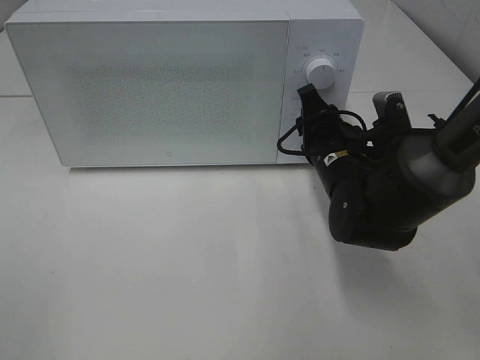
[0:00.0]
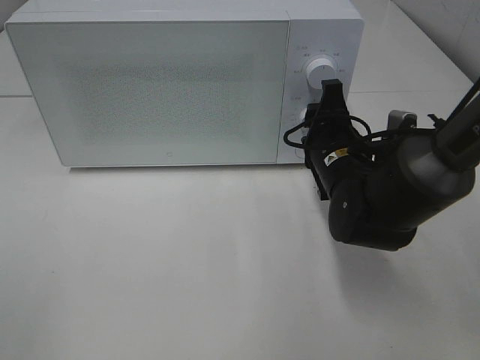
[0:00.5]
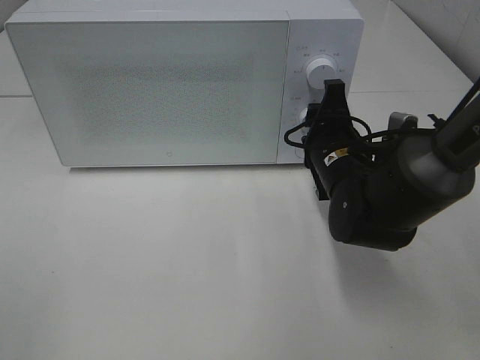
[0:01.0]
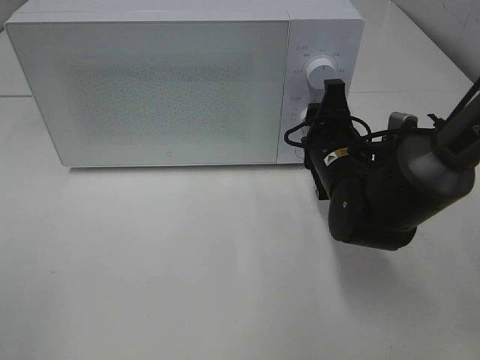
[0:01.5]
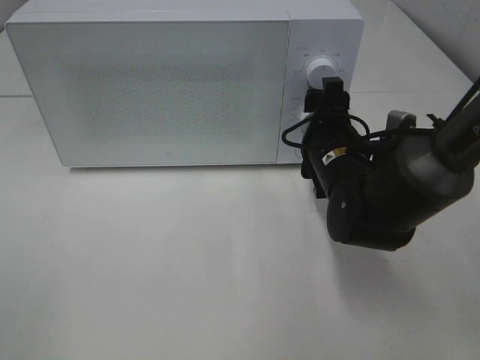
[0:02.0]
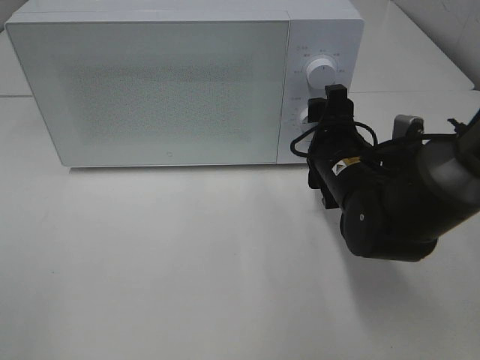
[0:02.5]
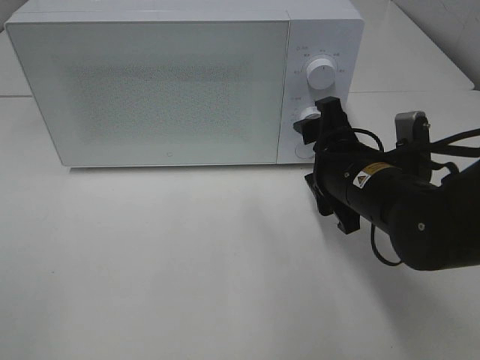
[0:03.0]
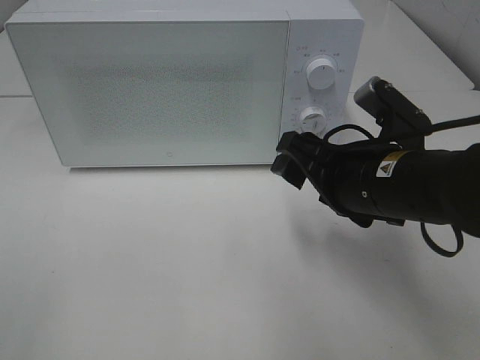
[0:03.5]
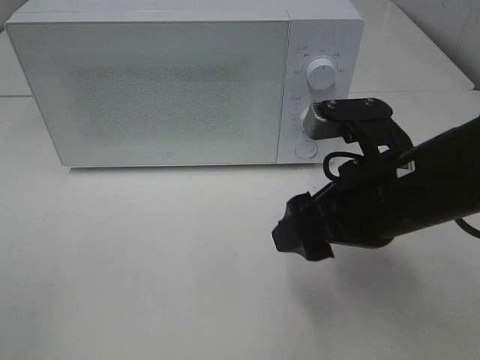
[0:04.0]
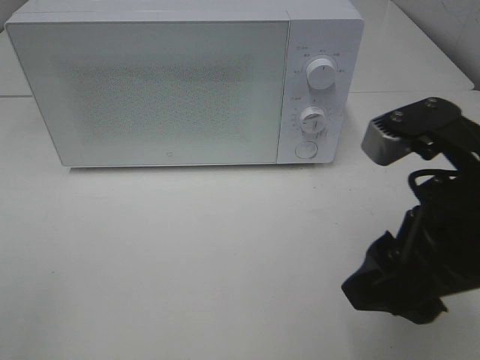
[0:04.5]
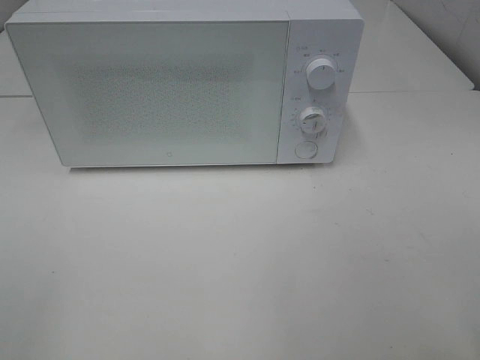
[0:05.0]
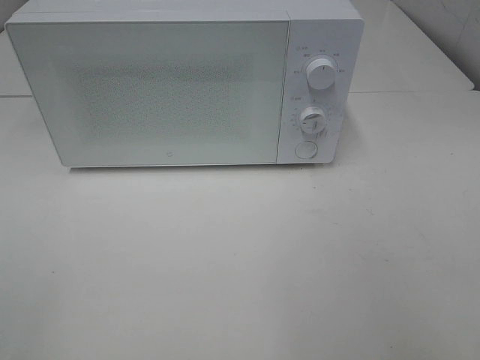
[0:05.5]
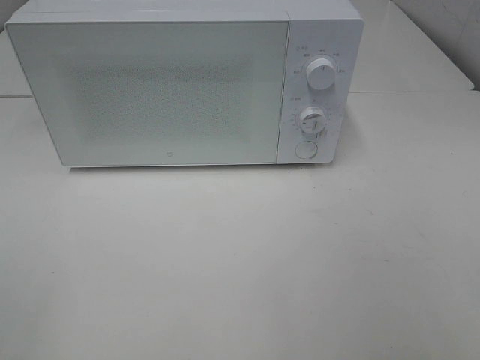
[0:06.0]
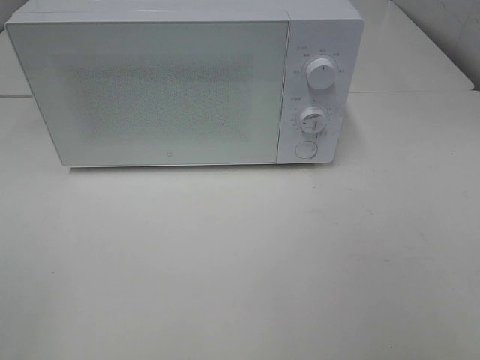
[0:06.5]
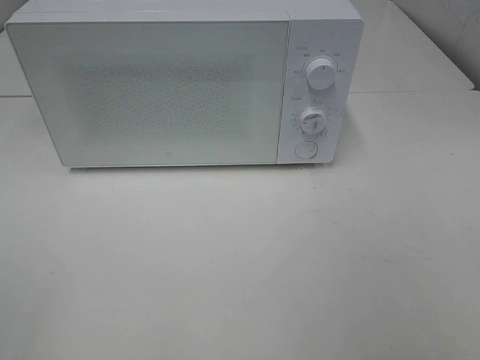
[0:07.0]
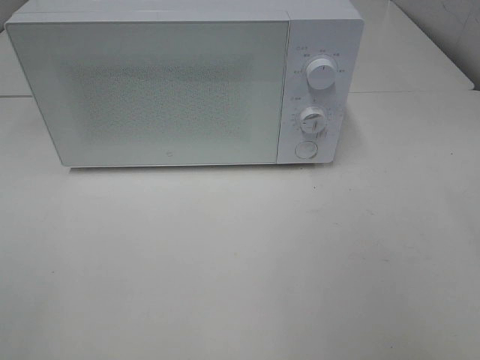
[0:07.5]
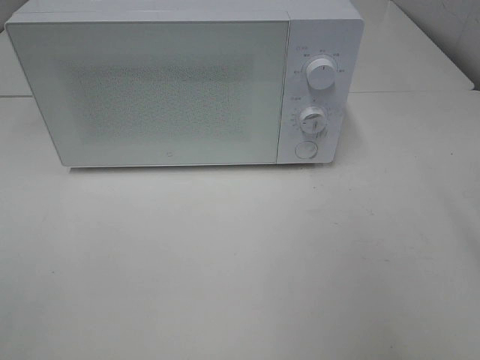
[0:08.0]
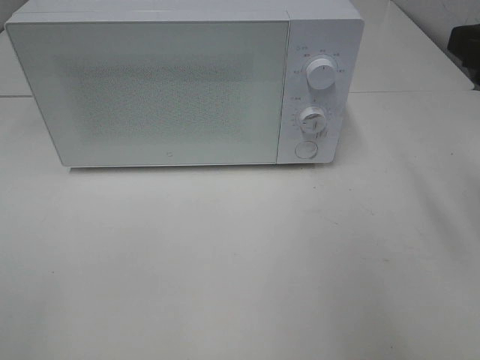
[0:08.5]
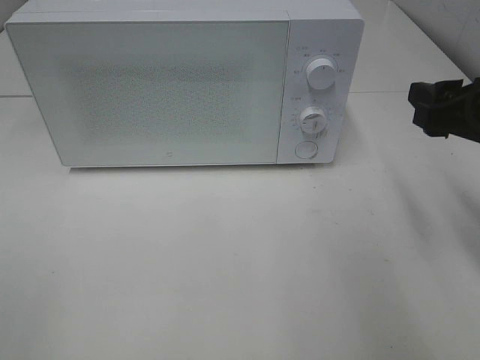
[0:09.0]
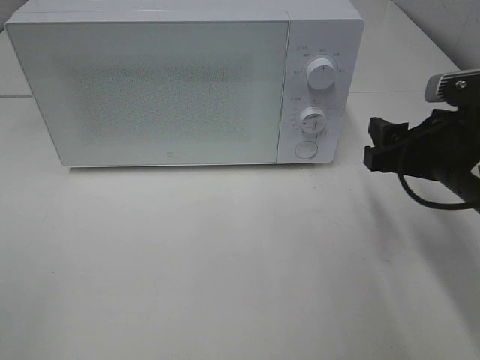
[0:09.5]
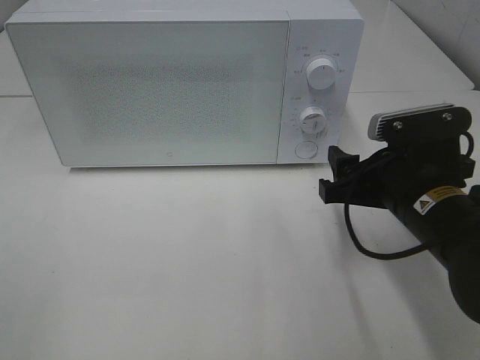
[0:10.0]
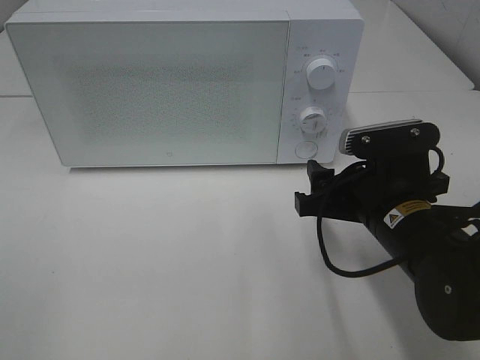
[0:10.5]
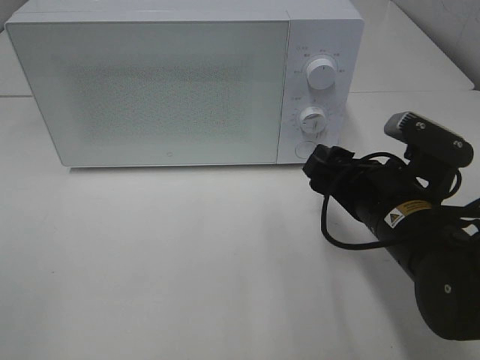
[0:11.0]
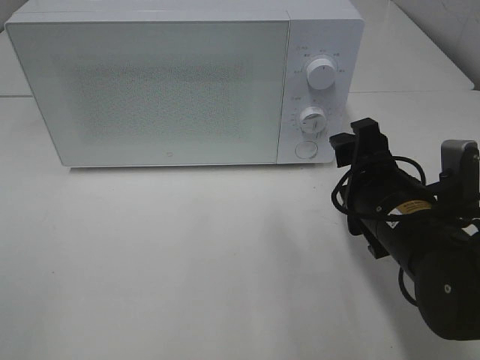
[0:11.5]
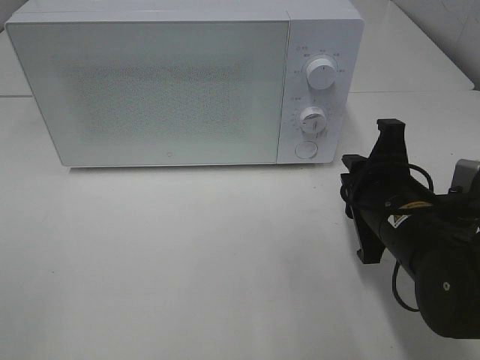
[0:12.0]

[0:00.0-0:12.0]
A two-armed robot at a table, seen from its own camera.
Task of the whole recording: Heat Sandwich.
Step, 0.0 to 3.0 s: Right hand: twist timer button.
0.0 to 2.0 s: The right gripper opens up.
2.0 to 4.0 s: The right gripper travels backward and upward by approximately 15 cm.
4.0 to 6.0 s: The right gripper moves backward, to the right and upward, approximately 25 cm.
8.0 to 10.0 s: The right gripper heads downward, to the left and forward, covering about 20 cm.
10.0 to 12.0 s: The right gripper closes.

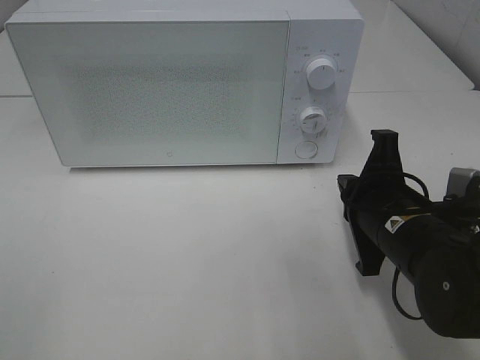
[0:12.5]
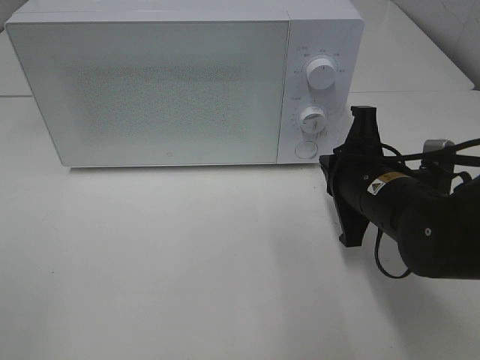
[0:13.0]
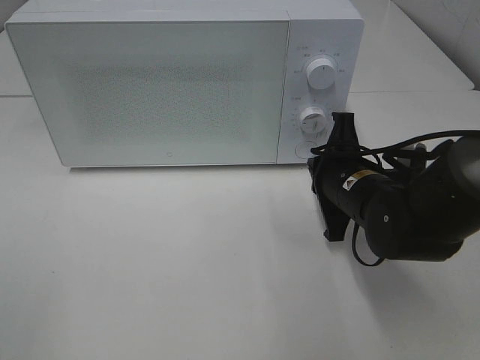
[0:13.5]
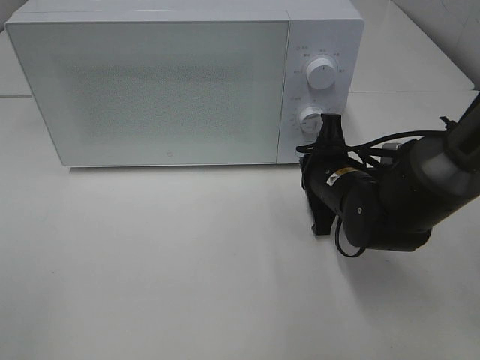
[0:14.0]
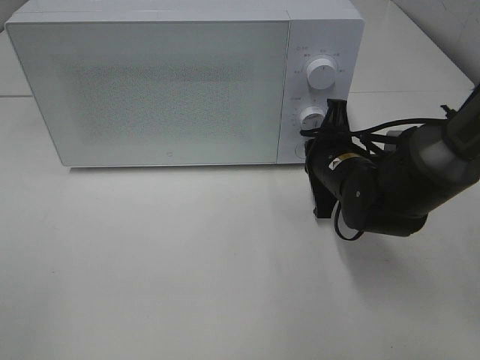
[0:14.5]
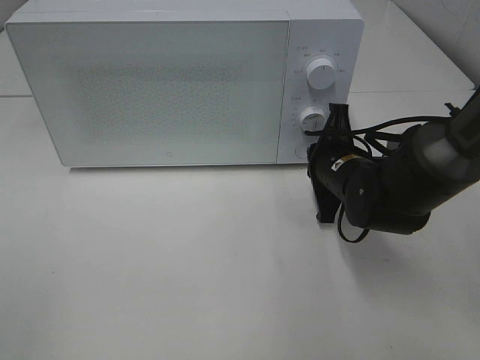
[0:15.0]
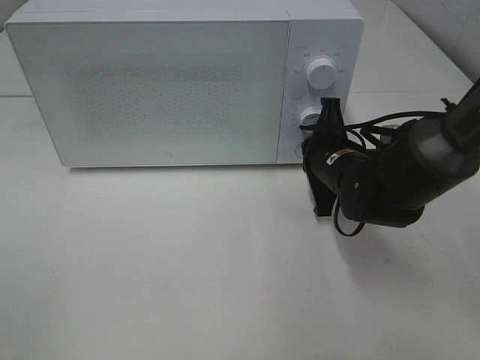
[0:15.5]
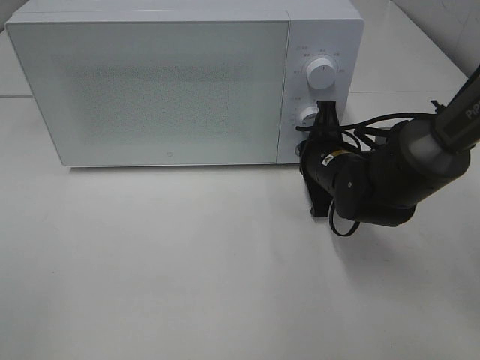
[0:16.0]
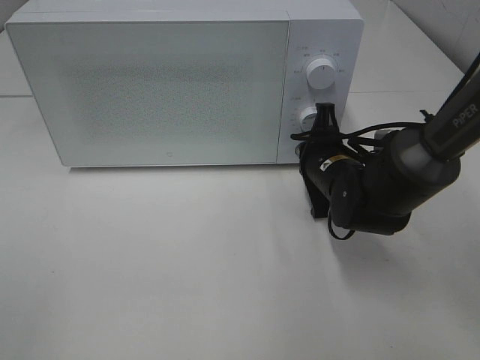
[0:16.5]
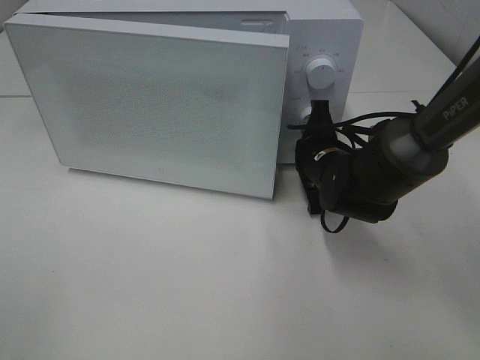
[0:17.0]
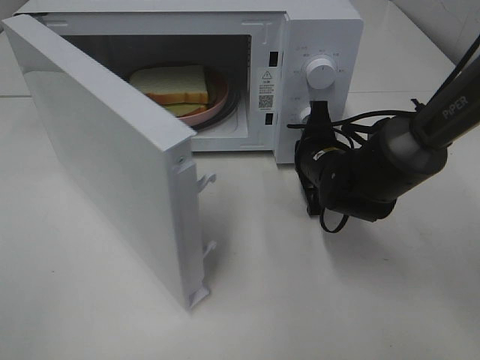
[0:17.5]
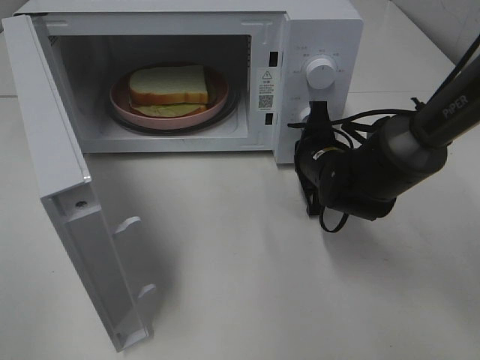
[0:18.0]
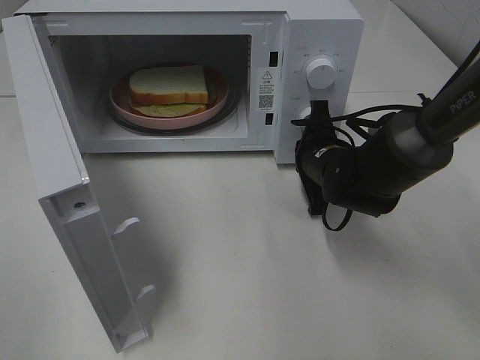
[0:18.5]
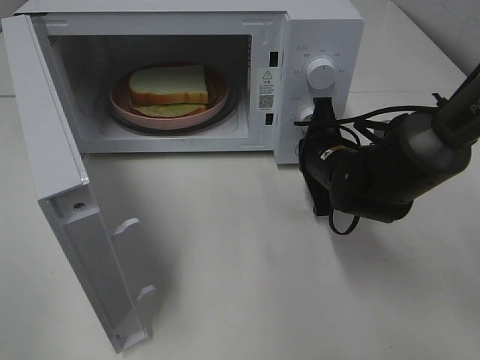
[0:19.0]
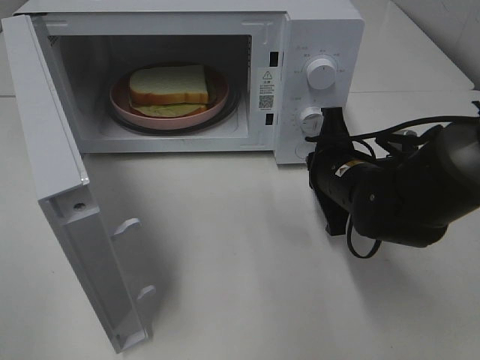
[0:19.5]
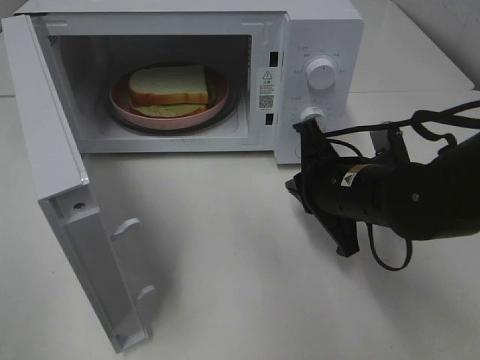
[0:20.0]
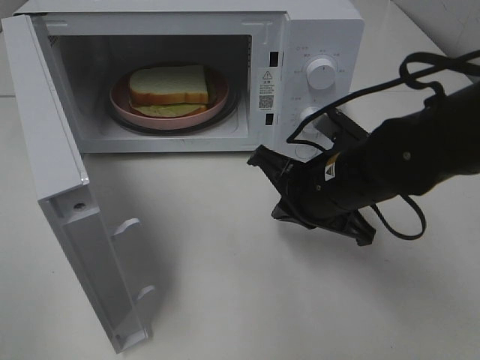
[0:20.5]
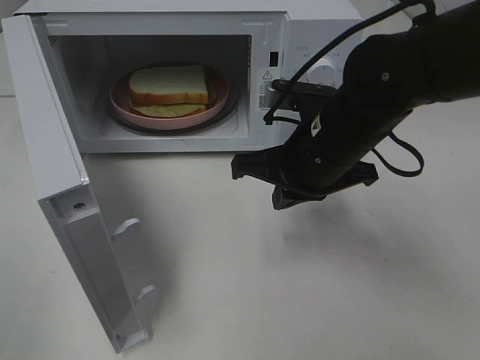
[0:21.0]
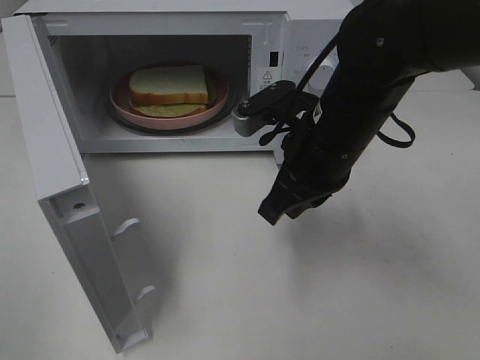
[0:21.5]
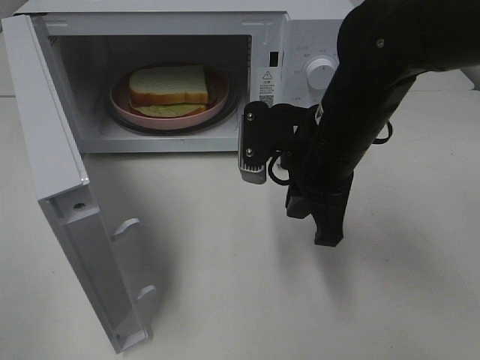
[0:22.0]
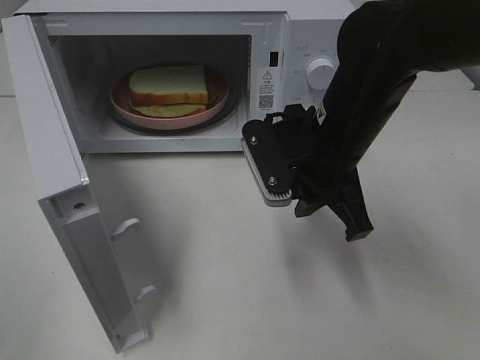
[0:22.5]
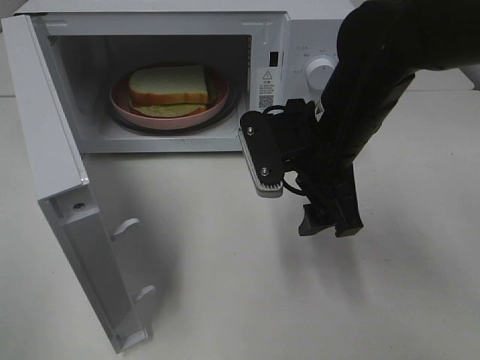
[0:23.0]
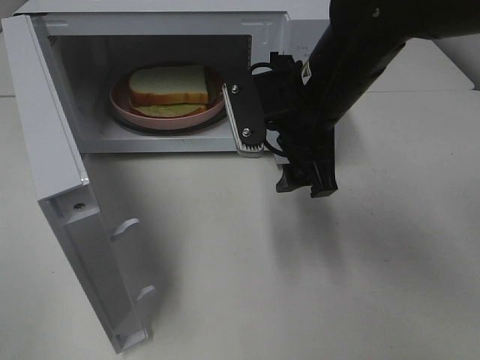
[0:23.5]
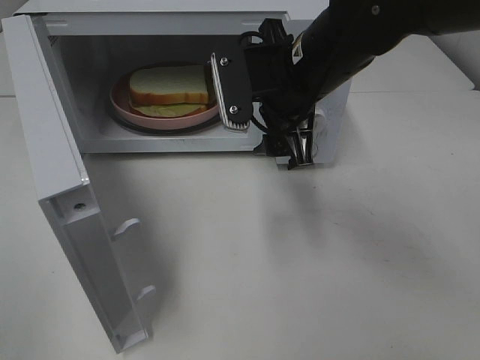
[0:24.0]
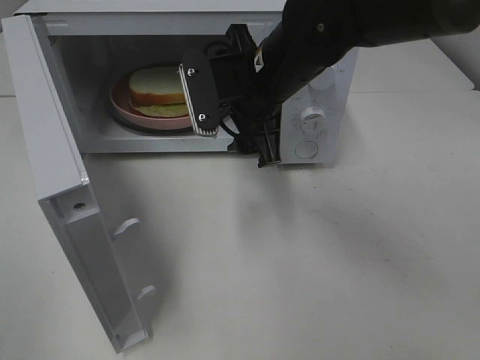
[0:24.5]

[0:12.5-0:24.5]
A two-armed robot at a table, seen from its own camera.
Task of the whole recording: Heat Sandwich.
Step, 12.5 to 19.0 s: Right hand: press the switch.
12.5 to 14.5 s: The right gripper heads forward, covering some 10 cm.
14.5 to 16.5 s: The grippers stay close to where they were, moving slightly.
18.5 to 20.5 s: The right gripper goes about 10 cm backward and upward.
20.5 to 22.5 s: The right gripper shifts approximately 5 cm upward.
22.5 to 24.5 s: The right gripper goes approximately 10 cm to the left and forward, and opens.

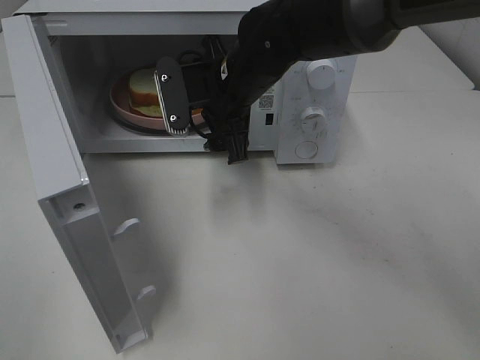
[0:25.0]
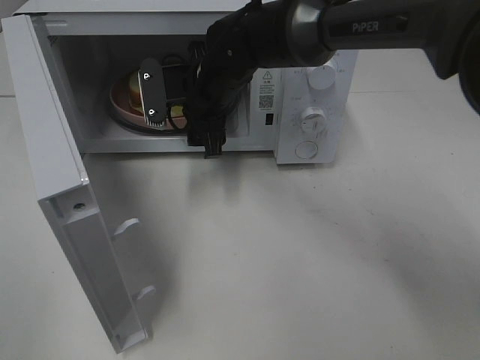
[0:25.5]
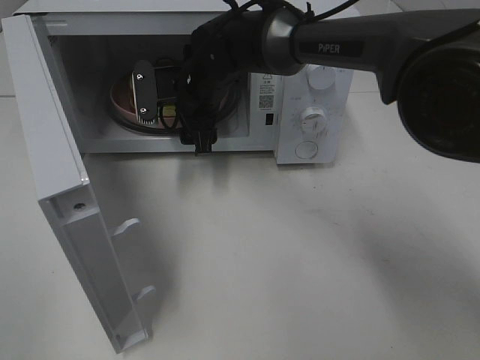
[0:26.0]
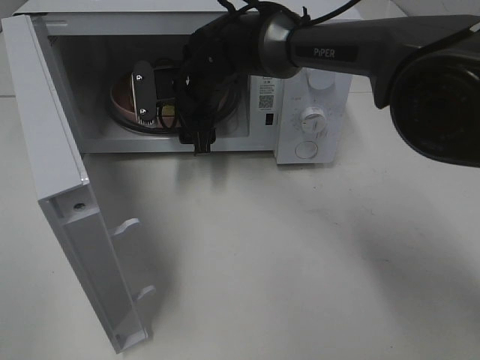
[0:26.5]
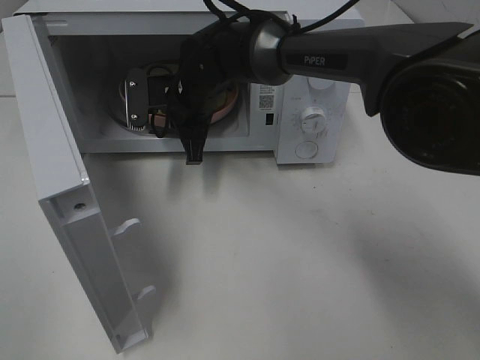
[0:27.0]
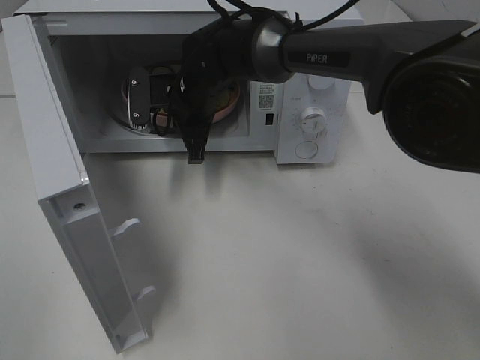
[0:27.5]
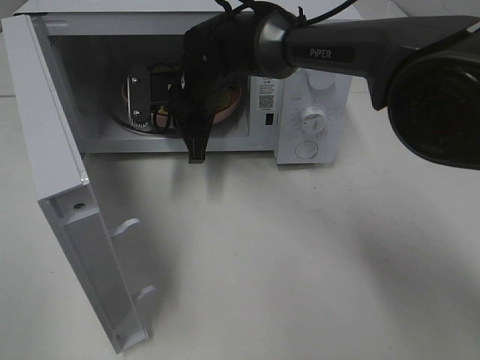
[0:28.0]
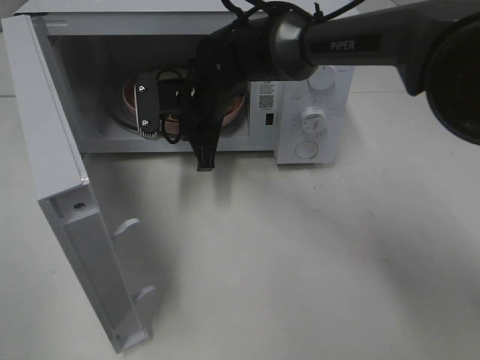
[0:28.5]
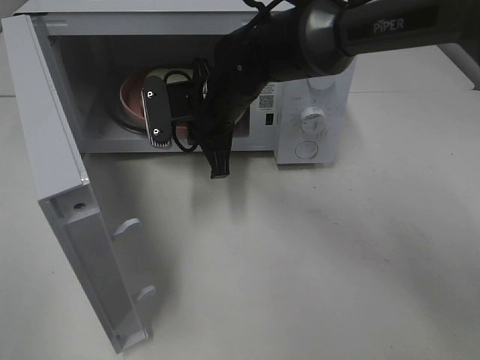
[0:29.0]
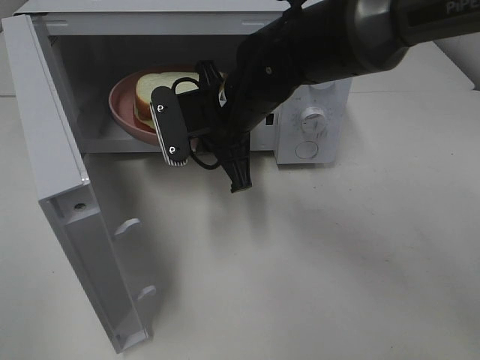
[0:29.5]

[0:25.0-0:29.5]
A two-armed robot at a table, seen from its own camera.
Task of the whole recording: Heat Sandwich.
Step, 25.0 to 28.0 s: Right hand: grab the plate with the sandwich.
25.0 to 27.0 s: The right gripper shifts roughly 10 cm forward and to the left, and closes its fingers.
27.0 to 29.5 s: The right gripper heads backward and to the right, covering approximately 10 cm.
